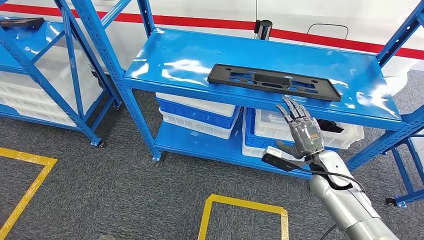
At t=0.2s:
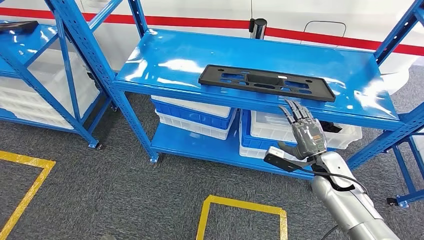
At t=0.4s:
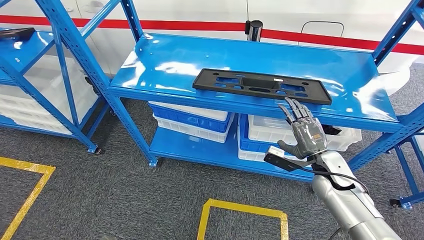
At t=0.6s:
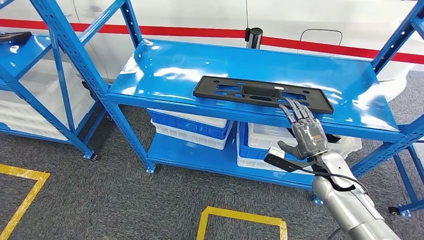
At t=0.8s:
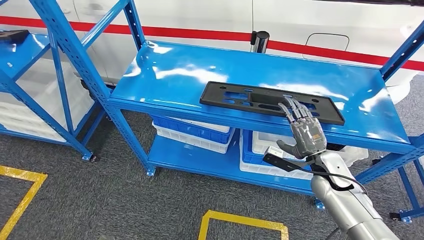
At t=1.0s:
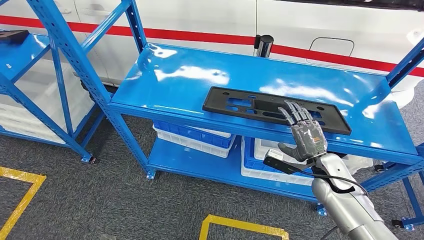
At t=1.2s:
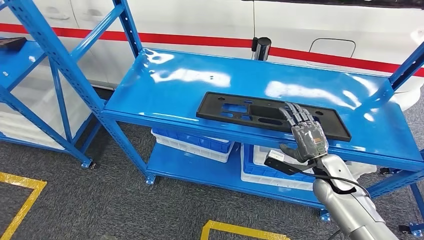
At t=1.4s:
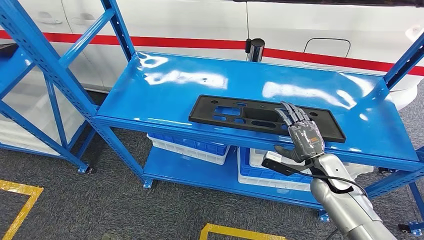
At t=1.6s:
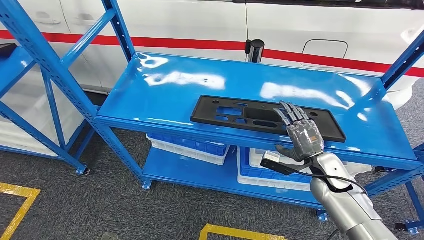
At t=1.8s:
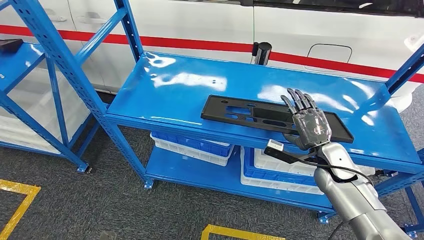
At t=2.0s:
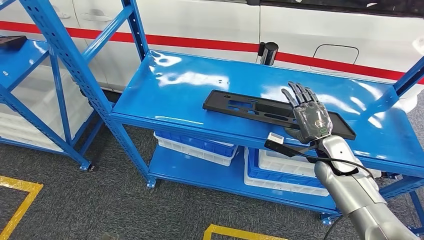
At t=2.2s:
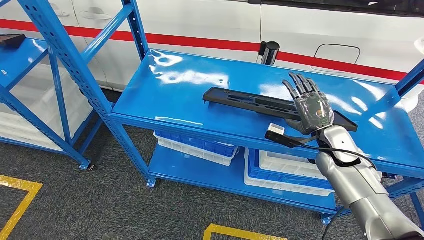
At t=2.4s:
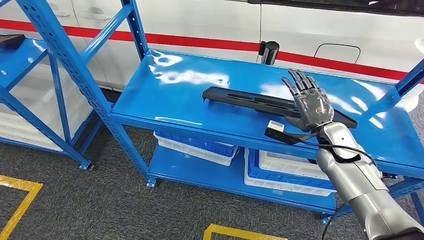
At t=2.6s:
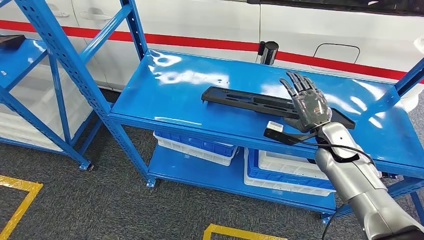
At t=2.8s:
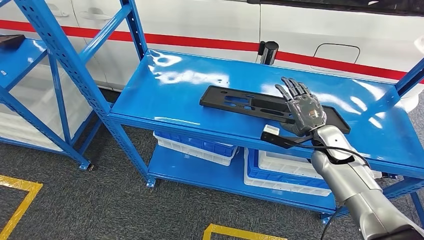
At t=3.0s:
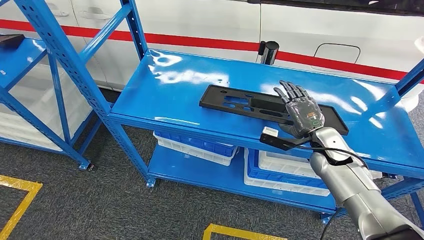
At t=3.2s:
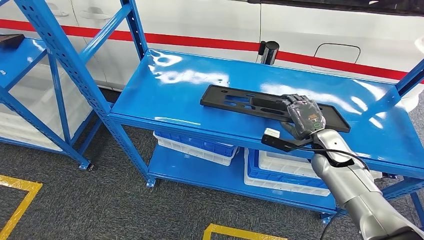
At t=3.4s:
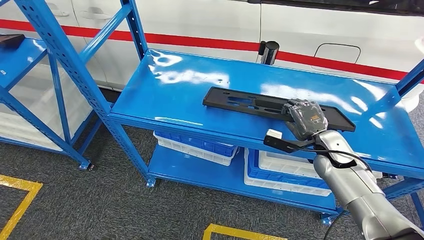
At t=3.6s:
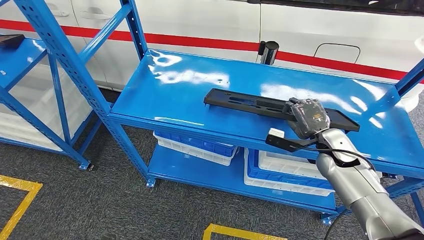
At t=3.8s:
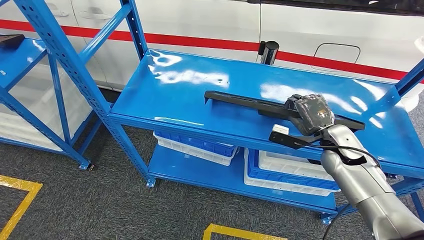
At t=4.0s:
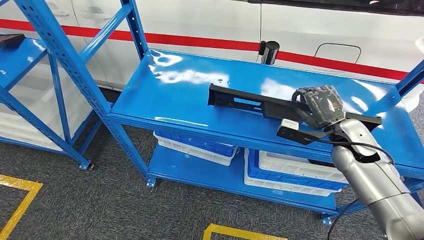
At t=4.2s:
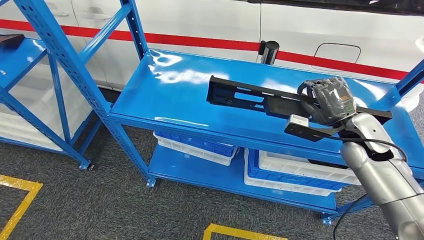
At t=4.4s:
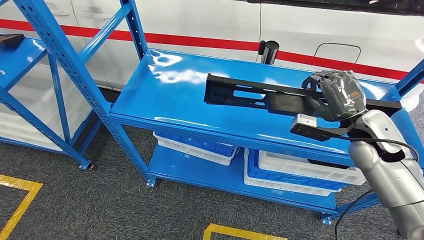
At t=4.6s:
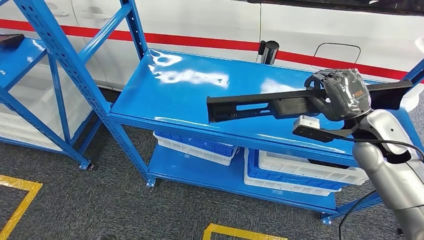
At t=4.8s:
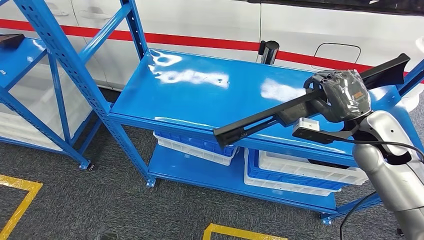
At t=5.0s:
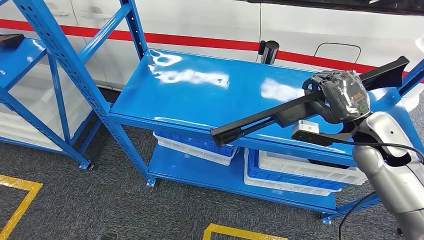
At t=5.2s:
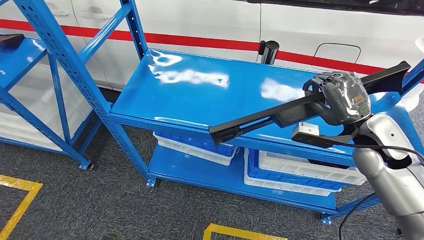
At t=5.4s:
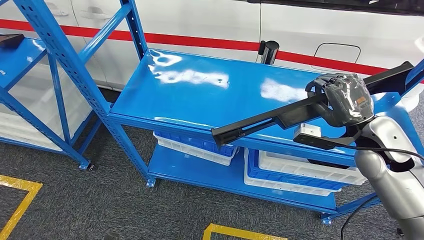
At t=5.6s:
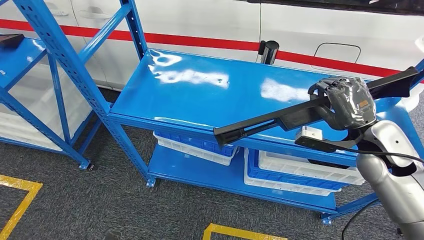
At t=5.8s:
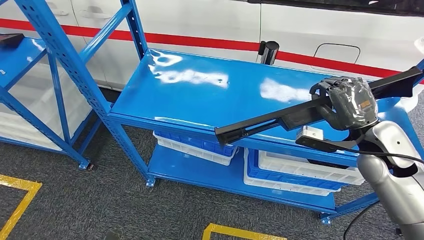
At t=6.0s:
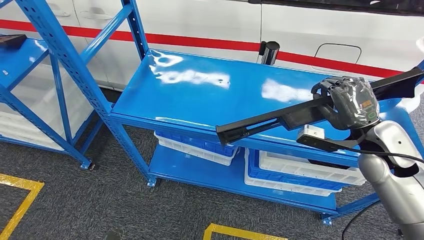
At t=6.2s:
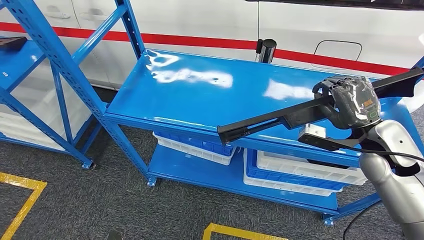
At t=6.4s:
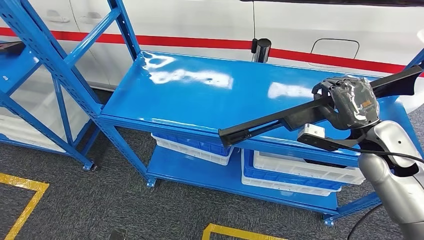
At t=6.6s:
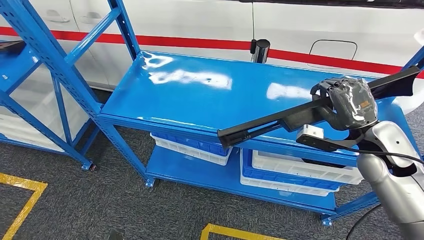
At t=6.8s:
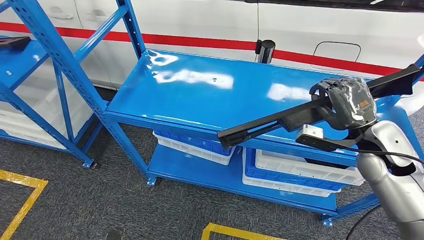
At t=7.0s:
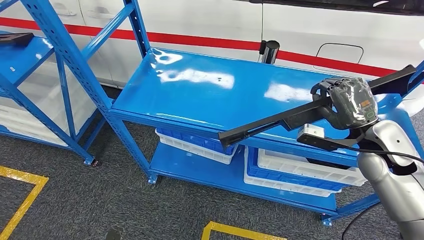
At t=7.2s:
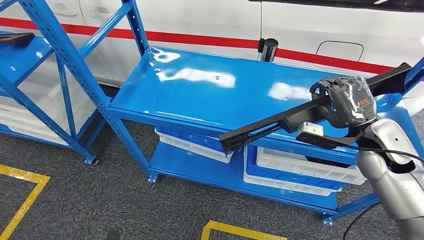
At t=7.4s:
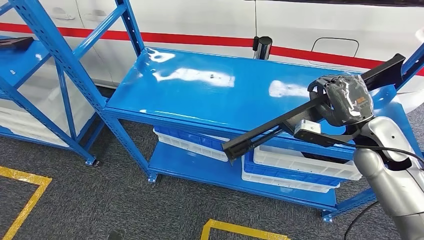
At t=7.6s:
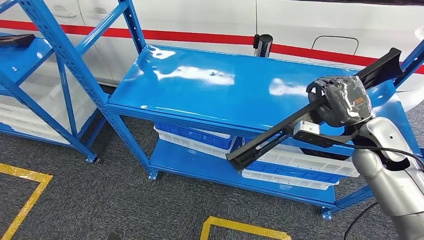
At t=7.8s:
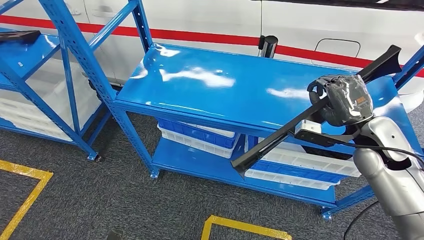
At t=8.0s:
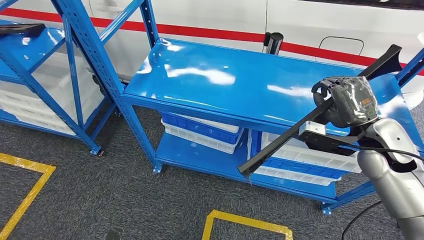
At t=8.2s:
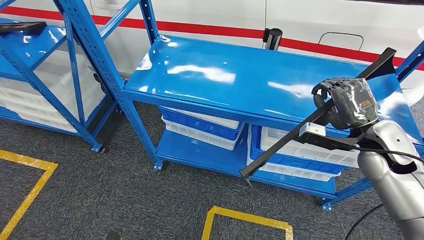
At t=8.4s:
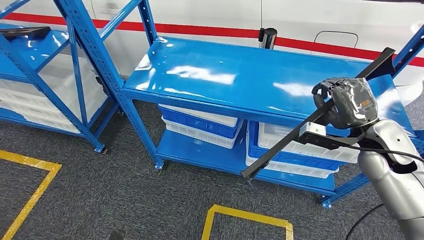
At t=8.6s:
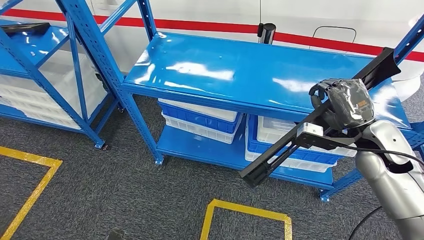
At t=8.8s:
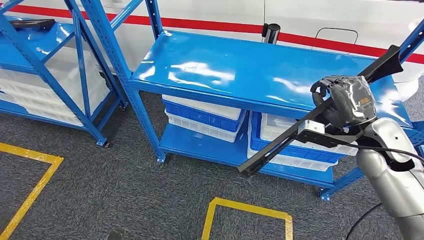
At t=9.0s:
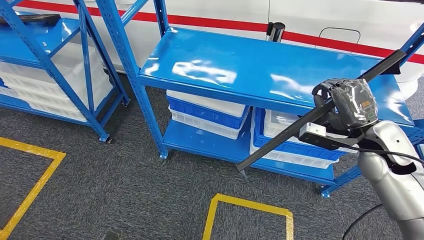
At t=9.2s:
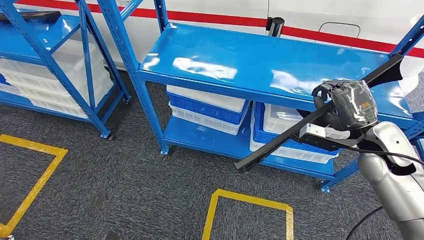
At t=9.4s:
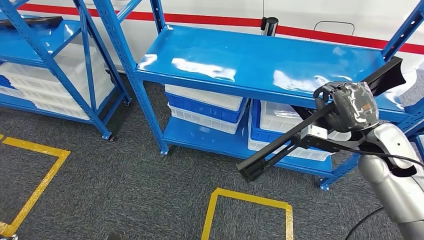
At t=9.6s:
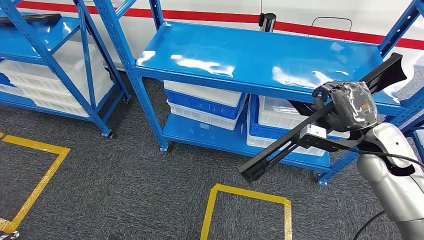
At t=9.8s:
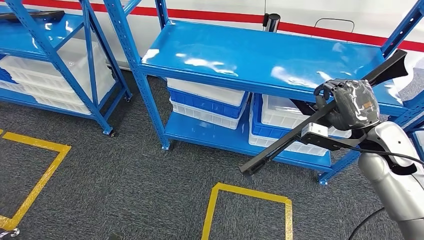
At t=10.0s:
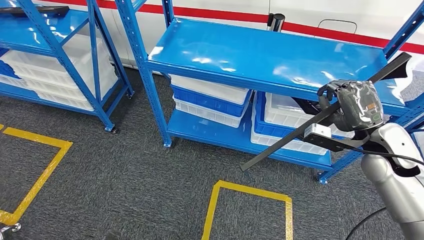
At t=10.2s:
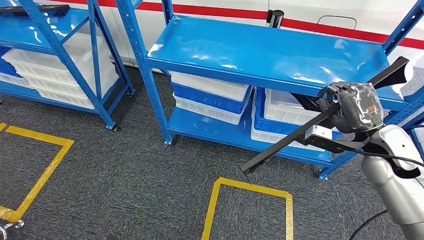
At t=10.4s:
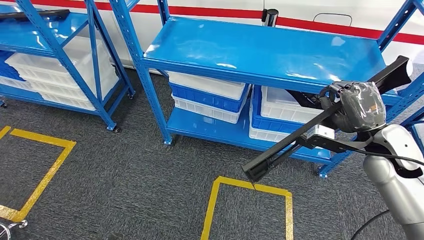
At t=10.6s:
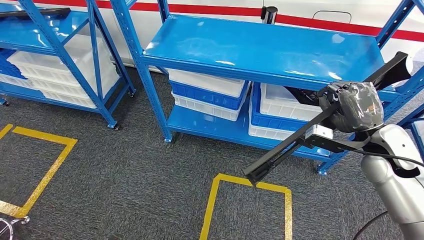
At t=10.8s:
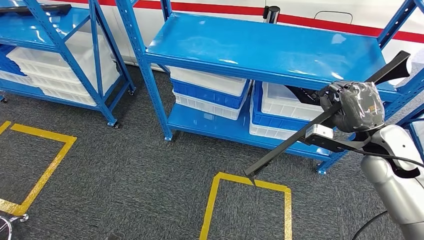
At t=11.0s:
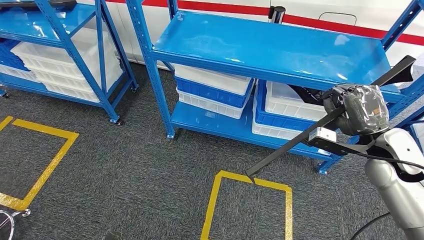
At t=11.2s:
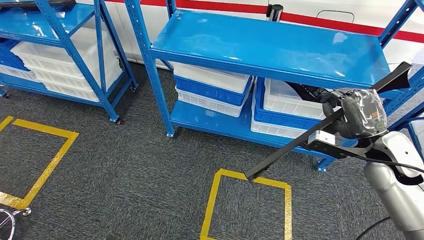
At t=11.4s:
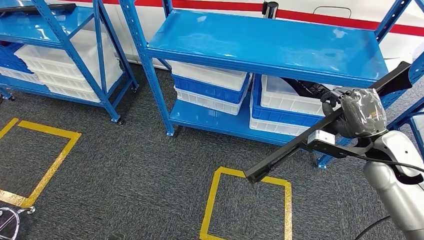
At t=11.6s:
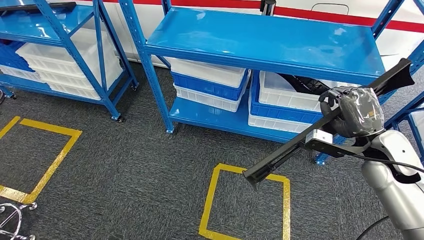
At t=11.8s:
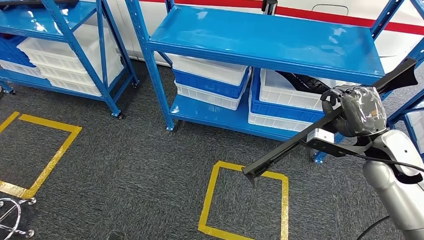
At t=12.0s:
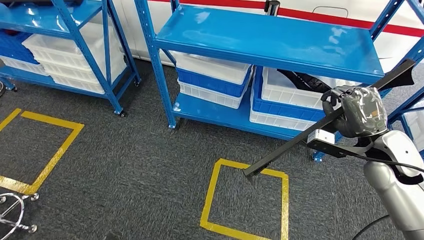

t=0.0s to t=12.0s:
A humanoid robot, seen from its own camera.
Step, t=0.0s to t=5.4s: Pick up the large material from the shelf.
t=3.0s to t=4.4s: The right hand goes approximately 10 cm upward.
t=4.4s to t=6.0s: The hands move only a little.

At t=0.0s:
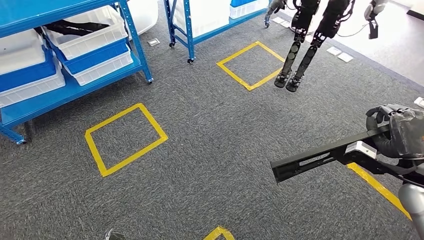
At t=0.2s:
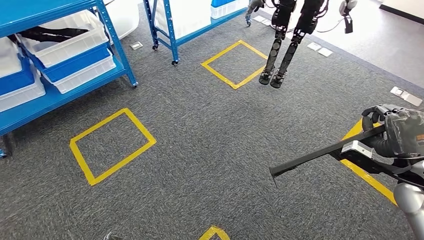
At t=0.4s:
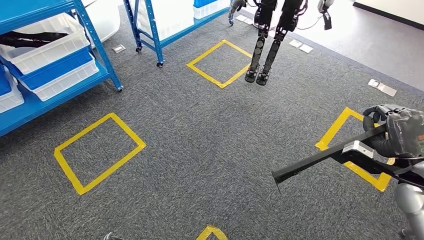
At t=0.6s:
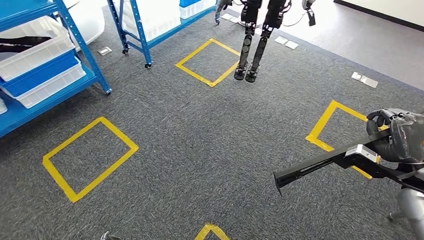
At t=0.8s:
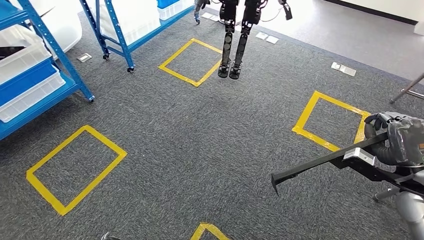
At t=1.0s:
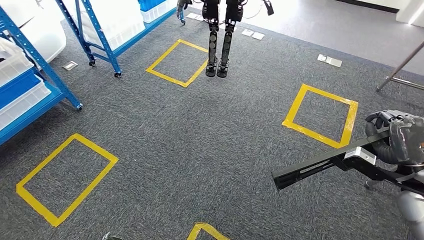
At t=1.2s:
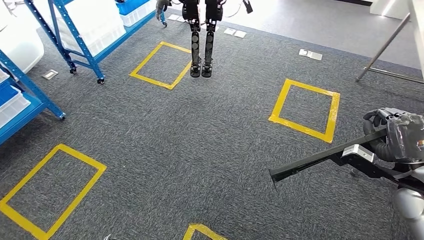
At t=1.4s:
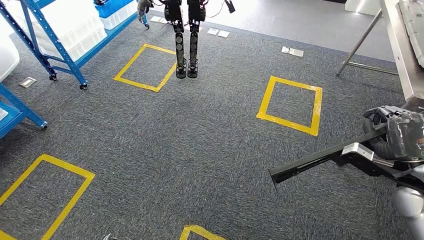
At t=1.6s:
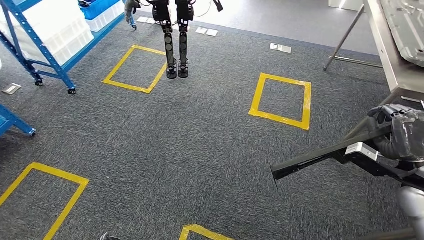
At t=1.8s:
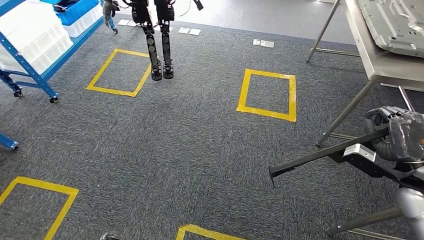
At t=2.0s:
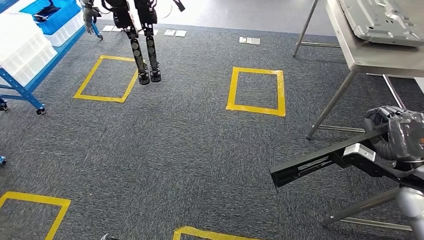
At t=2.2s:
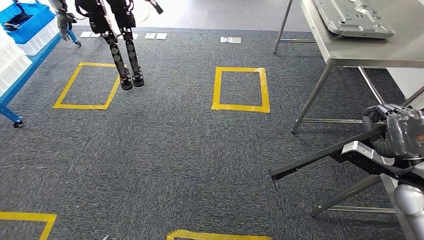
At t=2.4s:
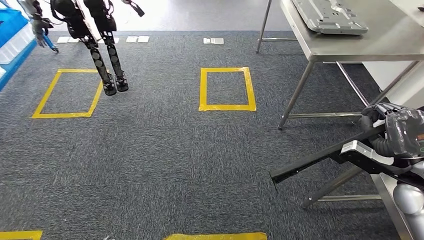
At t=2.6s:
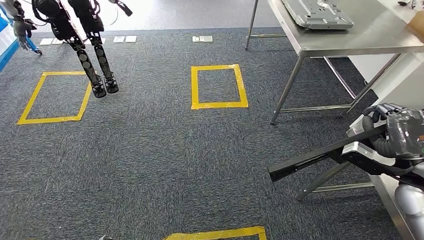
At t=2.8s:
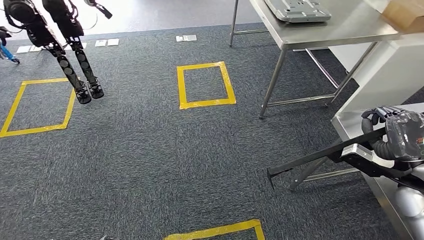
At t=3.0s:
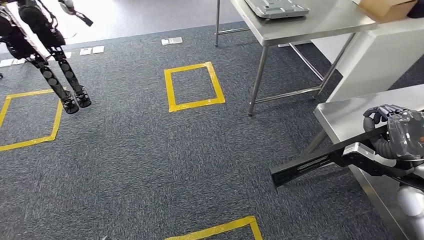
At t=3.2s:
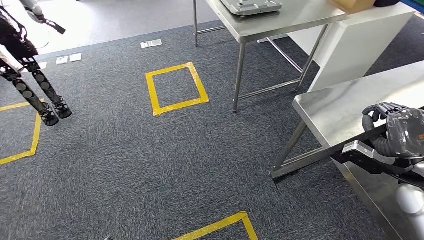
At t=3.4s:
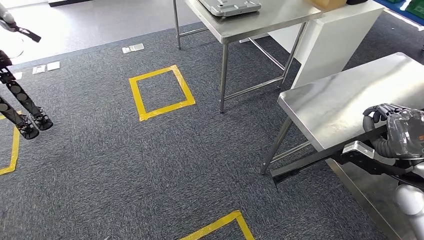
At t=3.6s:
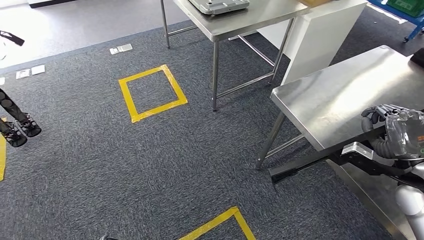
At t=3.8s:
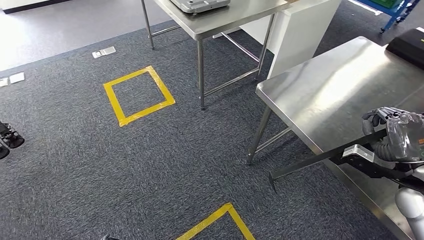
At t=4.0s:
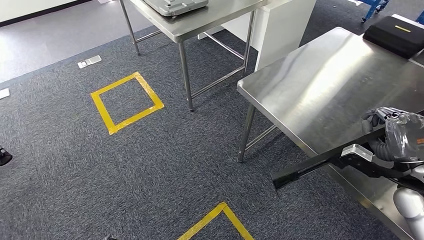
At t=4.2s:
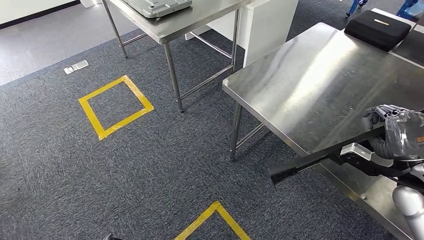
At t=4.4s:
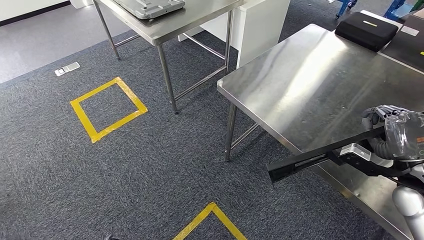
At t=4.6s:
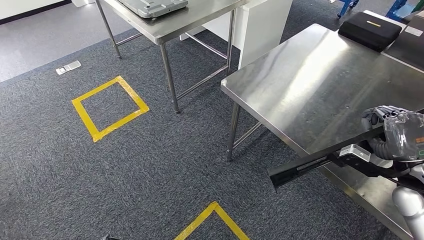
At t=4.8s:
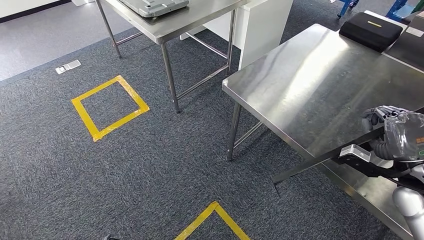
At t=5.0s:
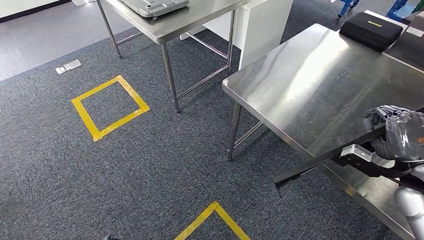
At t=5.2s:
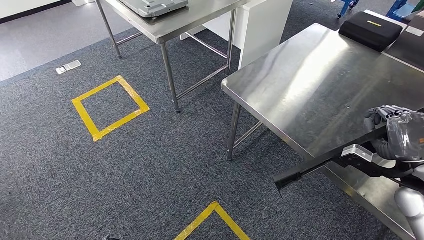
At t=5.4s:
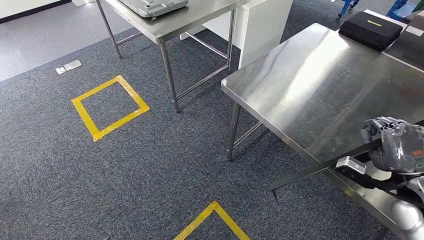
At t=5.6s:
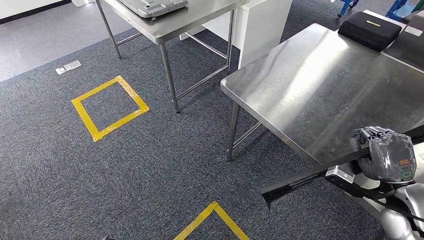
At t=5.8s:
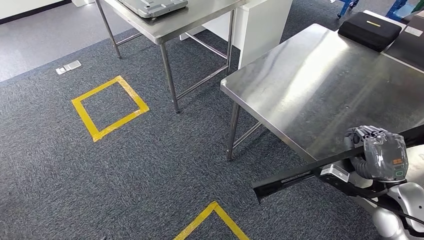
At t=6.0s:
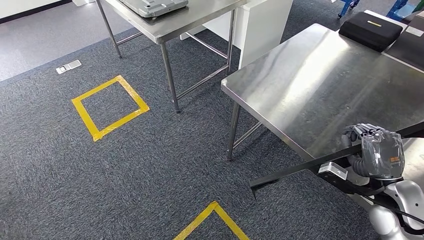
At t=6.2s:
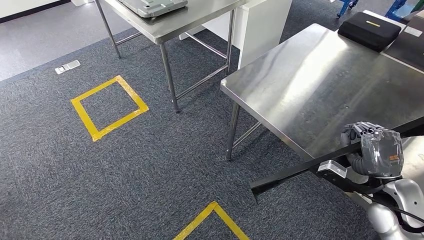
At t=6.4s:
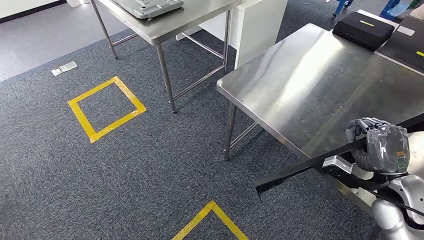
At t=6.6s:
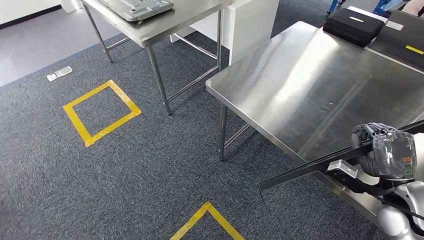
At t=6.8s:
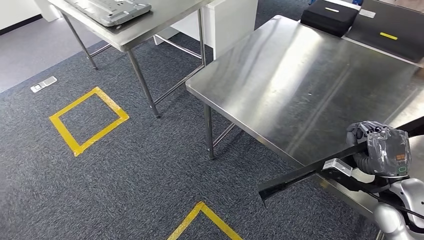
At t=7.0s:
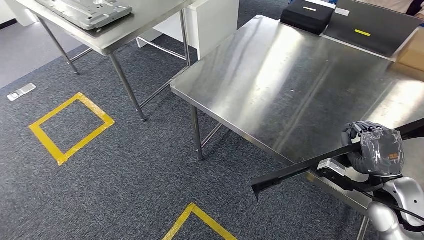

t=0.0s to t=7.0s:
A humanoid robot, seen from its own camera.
Step, t=0.0s to t=3.4s: Move the large material to the workbench.
